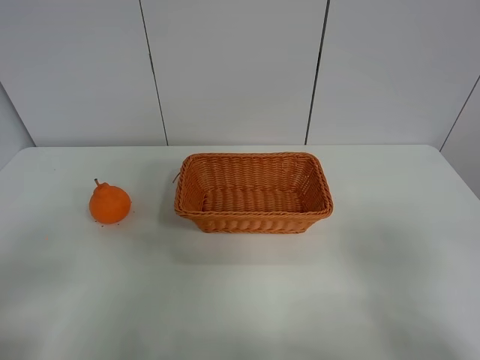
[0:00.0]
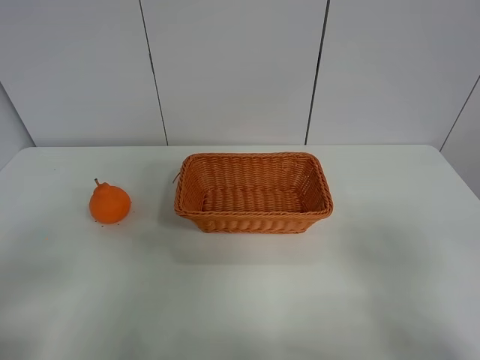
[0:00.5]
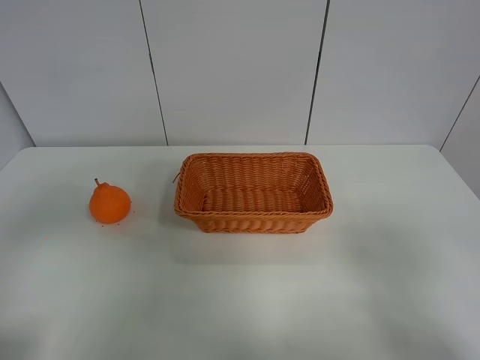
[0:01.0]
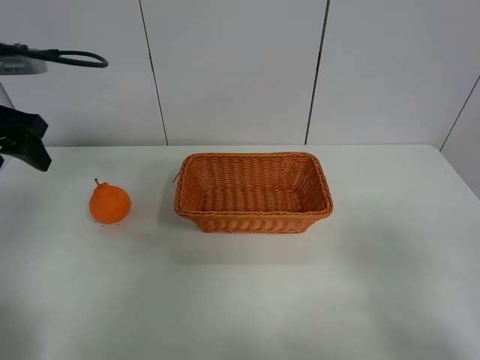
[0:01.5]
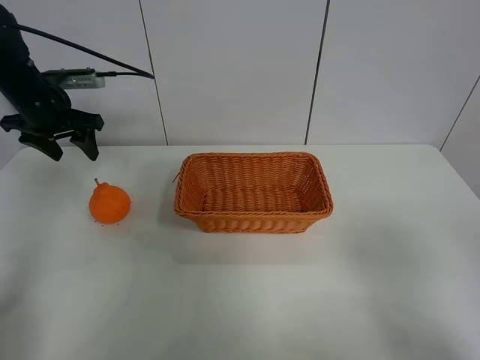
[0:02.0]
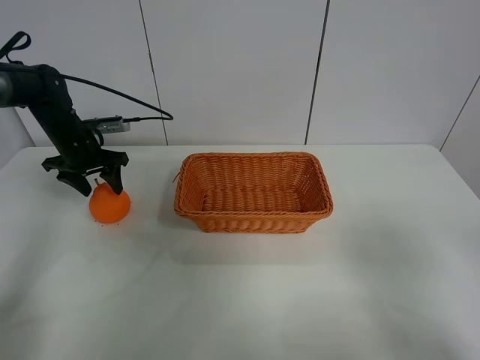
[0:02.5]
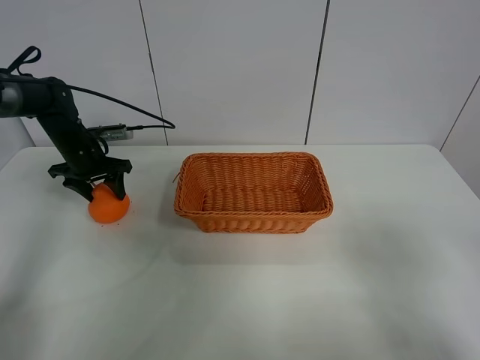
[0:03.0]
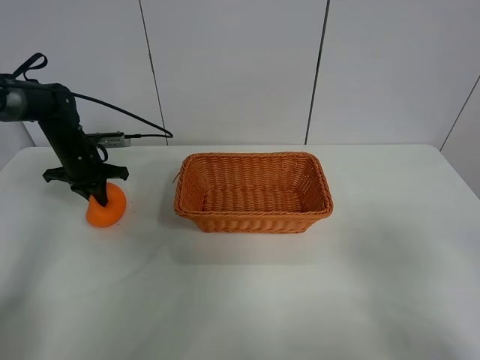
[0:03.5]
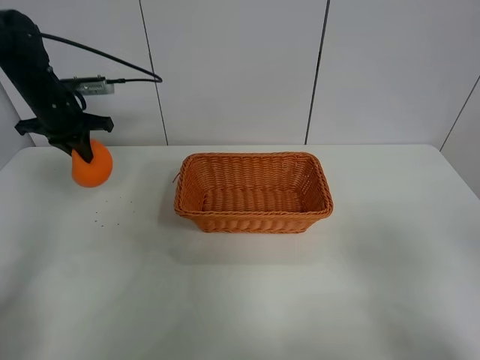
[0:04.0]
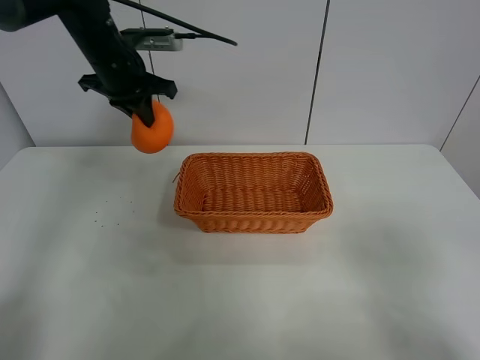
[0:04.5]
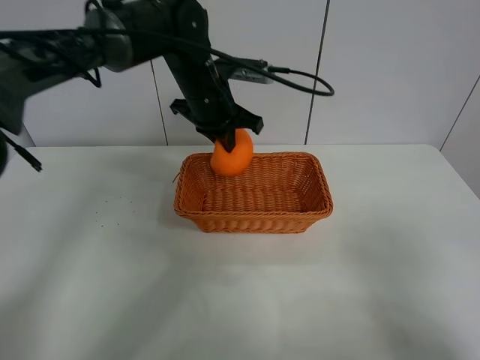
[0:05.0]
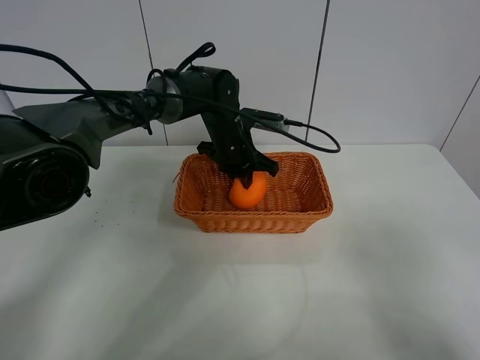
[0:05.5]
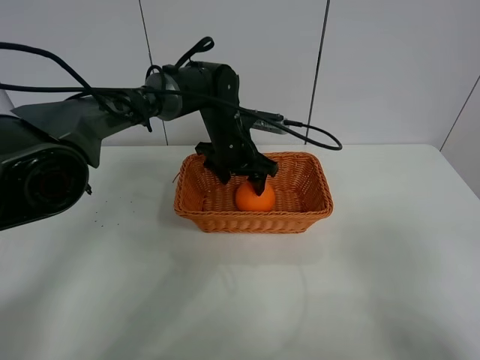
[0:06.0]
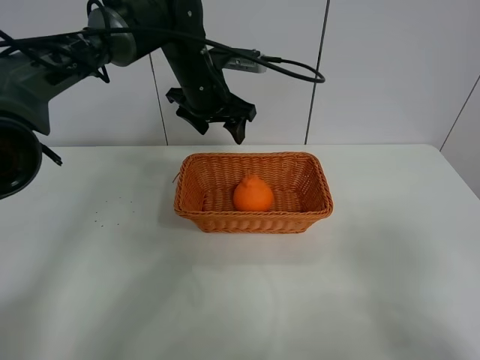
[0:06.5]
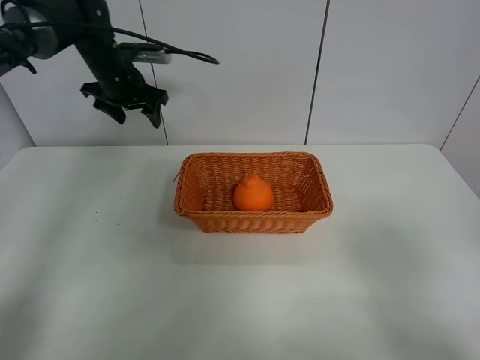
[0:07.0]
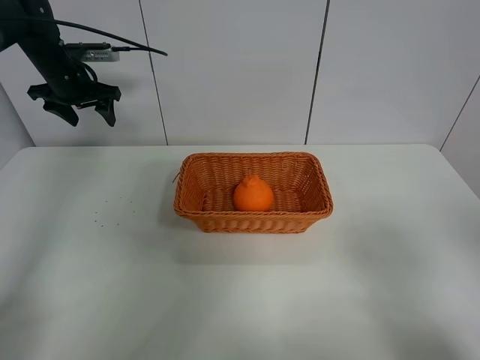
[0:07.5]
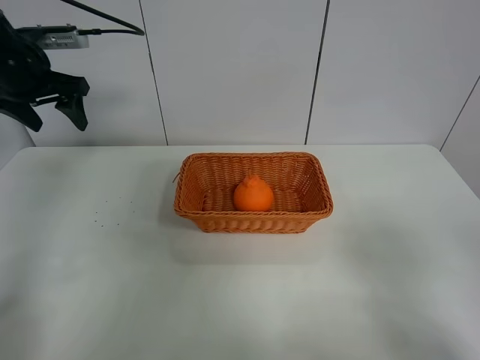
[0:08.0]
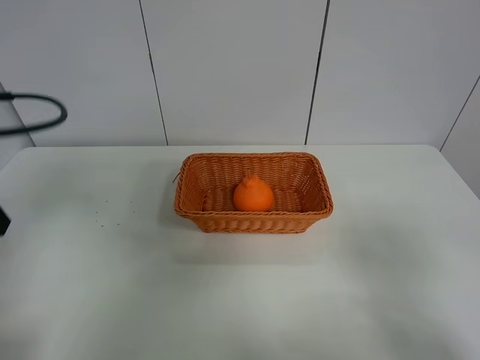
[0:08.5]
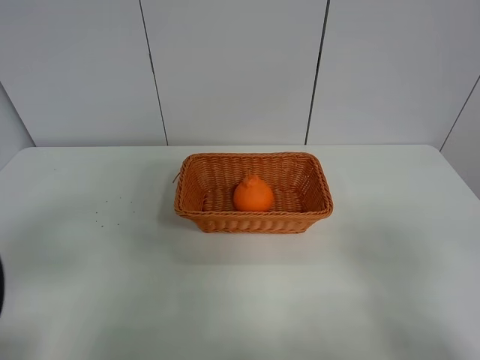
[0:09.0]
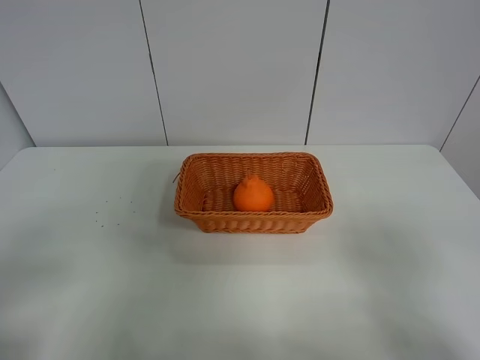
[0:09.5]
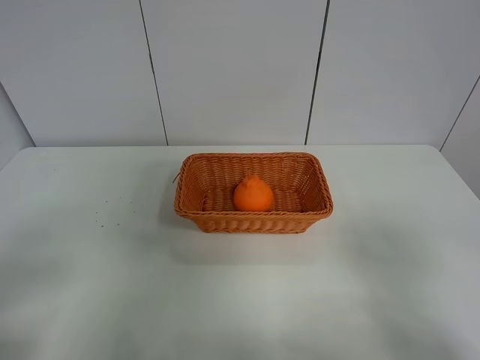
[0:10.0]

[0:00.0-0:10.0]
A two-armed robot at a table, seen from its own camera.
Task of the whole recording: left gripper grabs oranges and puts them in the basket.
Step, 0:00.0 to 0:03.5: Grasp the orange with left gripper.
Step, 0:04.0 to 0:06.5: Place the orange in the basket with left gripper.
0:00.0 to 0:02.0: The left gripper goes some 40 cm forward.
0:02.0 to 0:04.0: The left gripper travels downward and back again, approximately 10 cm each way, and closes.
0:04.0 to 0:06.0: The left gripper moves to the right, approximately 30 cm, and opens.
0:06.0 to 0:08.0: The left gripper shifts approximately 35 cm to the left and upward.
0:08.0 to 0:10.0: The left gripper shifts about 40 cm backward.

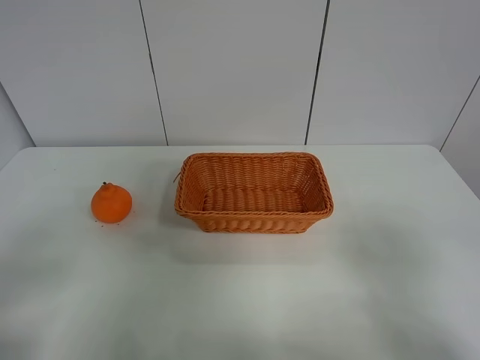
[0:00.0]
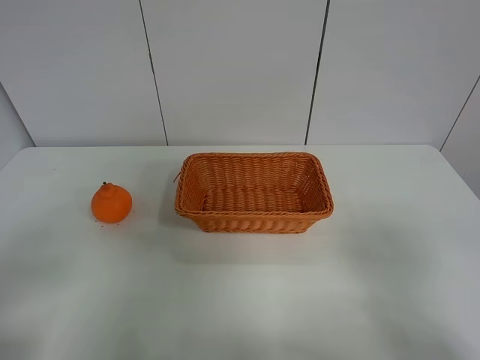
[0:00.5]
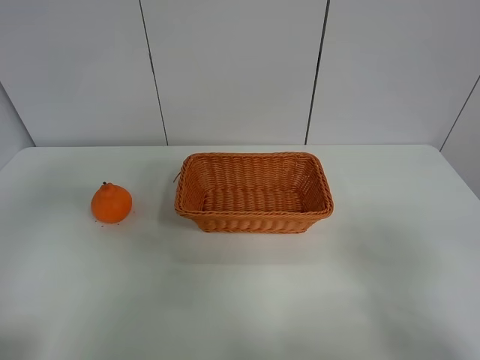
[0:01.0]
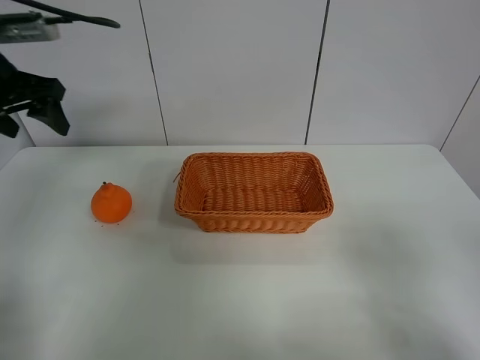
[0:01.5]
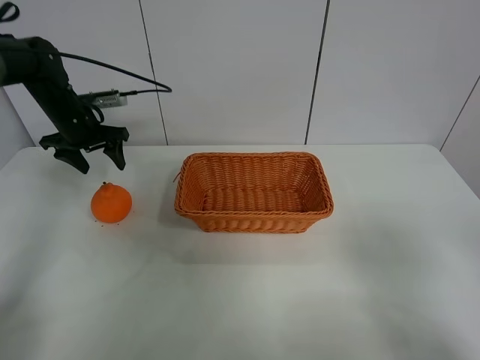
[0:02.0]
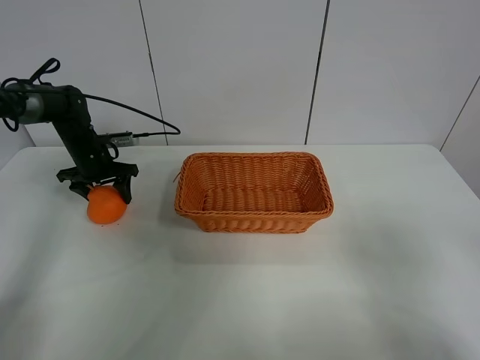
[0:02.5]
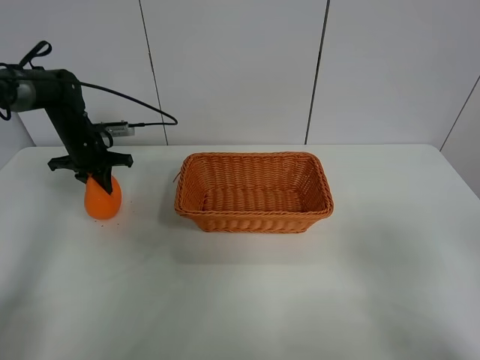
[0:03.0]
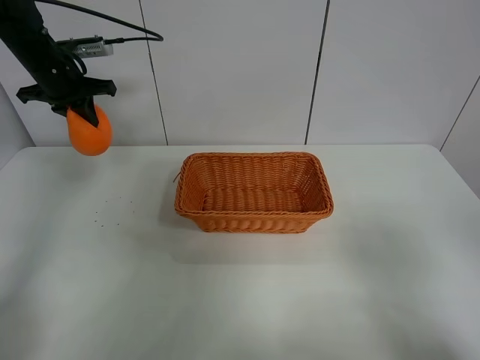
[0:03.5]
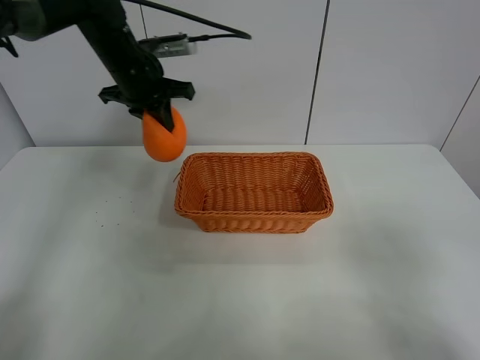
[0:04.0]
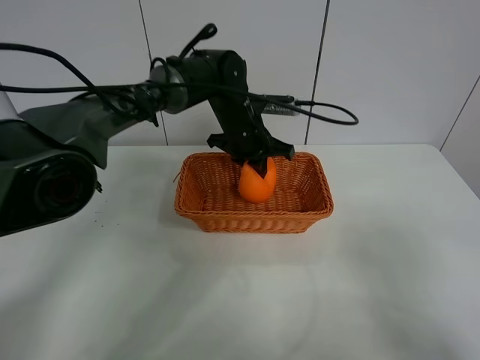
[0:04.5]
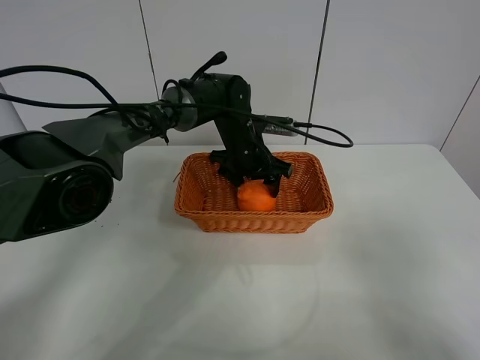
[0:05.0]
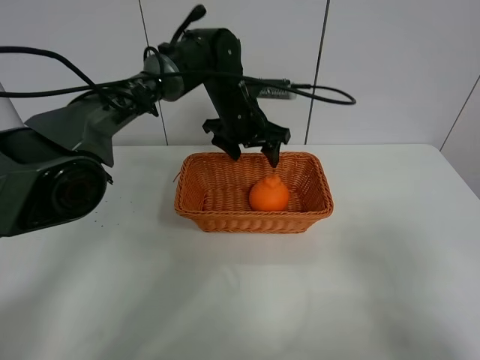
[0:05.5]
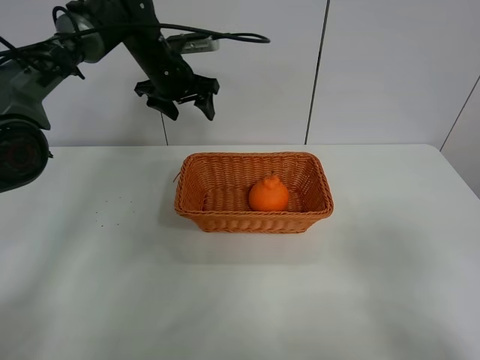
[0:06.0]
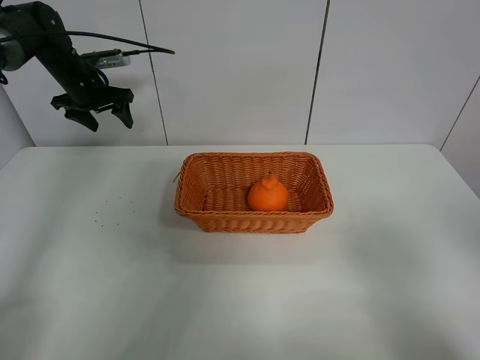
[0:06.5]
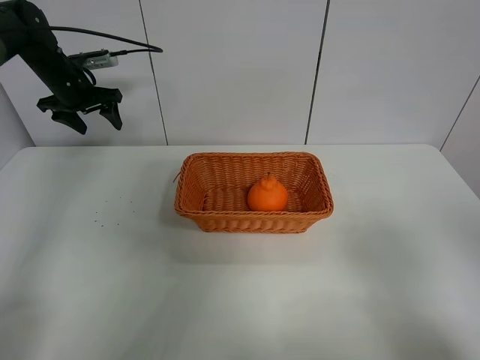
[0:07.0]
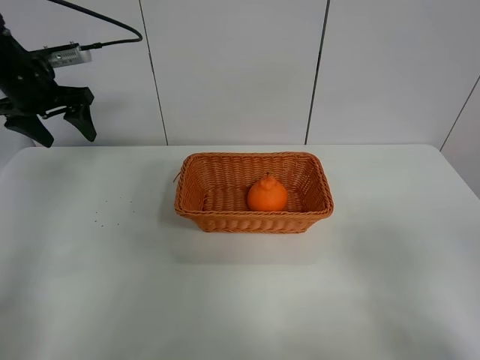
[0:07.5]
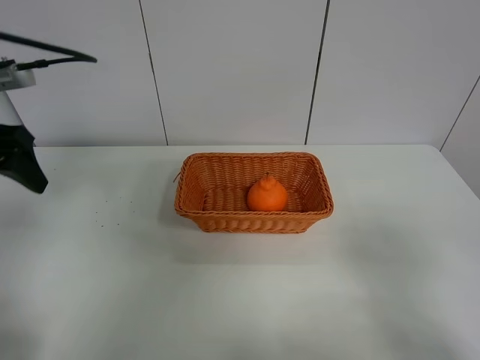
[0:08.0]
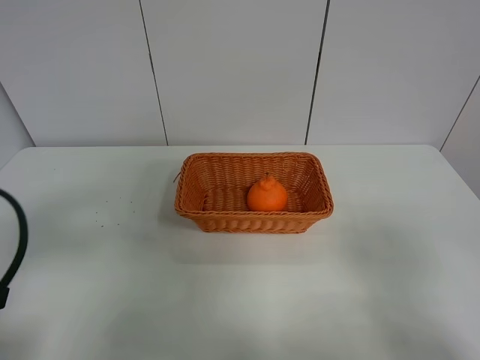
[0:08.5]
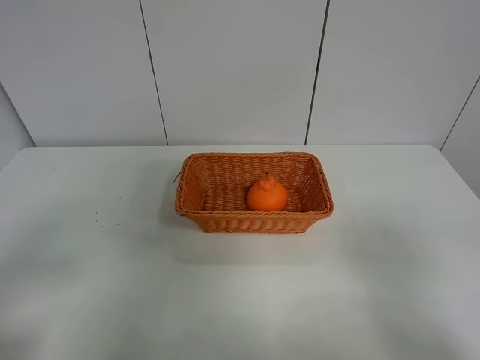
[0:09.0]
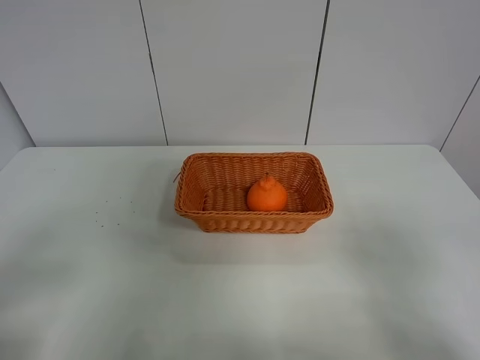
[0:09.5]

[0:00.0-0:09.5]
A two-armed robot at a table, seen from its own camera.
Task of the whole recording: left gripper grabs oranges and puts them in the basket.
Step, 0:00.0 to 0:02.5: Grasp the orange with left gripper.
Step, 0:03.0 to 0:06.0: Place the orange in the basket with left gripper.
0:00.0 to 0:02.0: The left gripper moves forward, about 50 cm.
0:02.0 to 0:04.0: The left gripper goes some 15 cm to the right and upward, and closes its fingers.
0:04.0 to 0:05.5: The left gripper moves to the right and downward, approximately 15 cm, and opens.
0:05.5 to 0:07.5: The left gripper is displaced to the left by about 30 cm.
0:07.5 to 0:09.5: The left gripper shifts about 40 cm backward.
